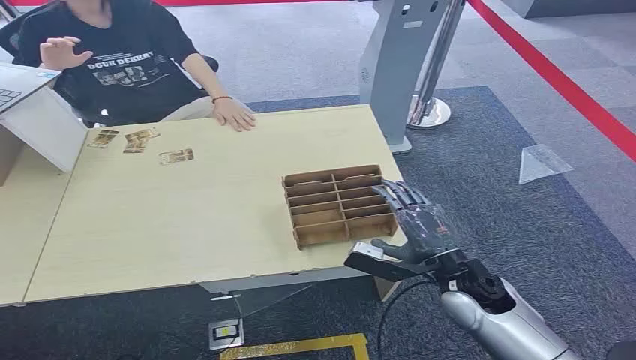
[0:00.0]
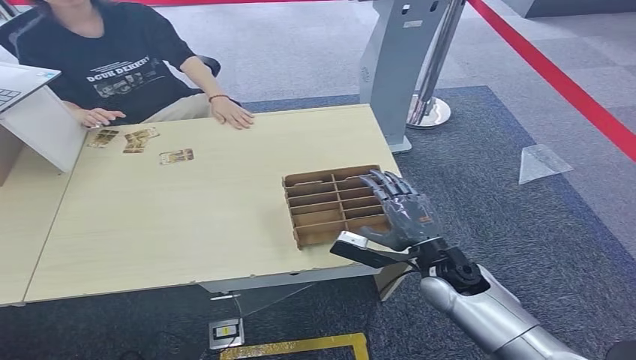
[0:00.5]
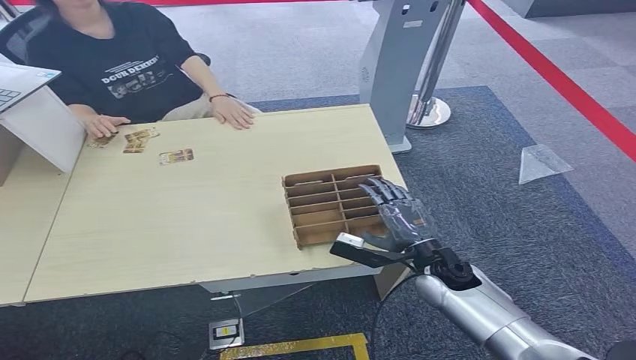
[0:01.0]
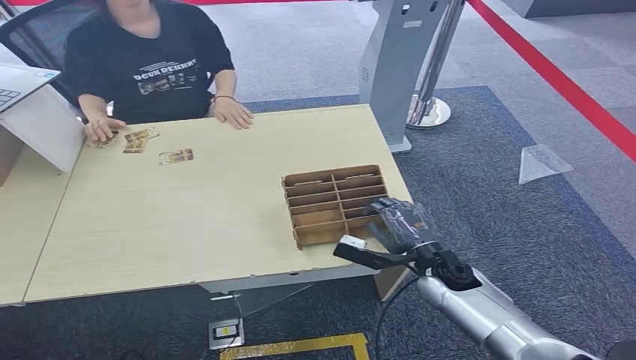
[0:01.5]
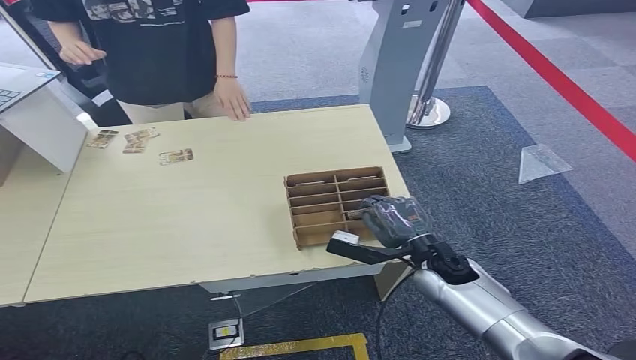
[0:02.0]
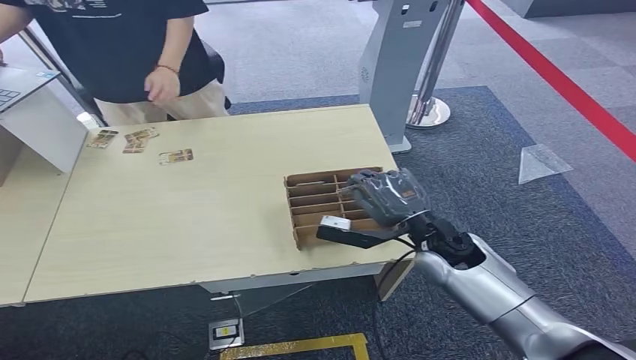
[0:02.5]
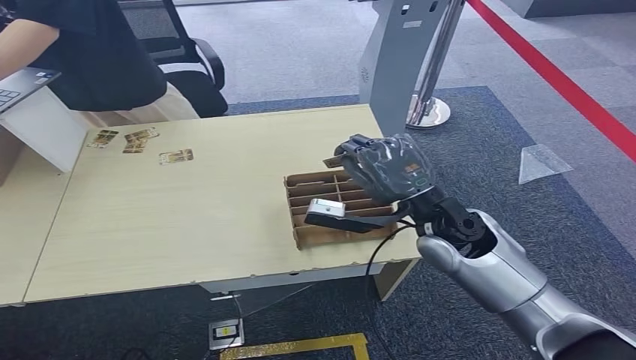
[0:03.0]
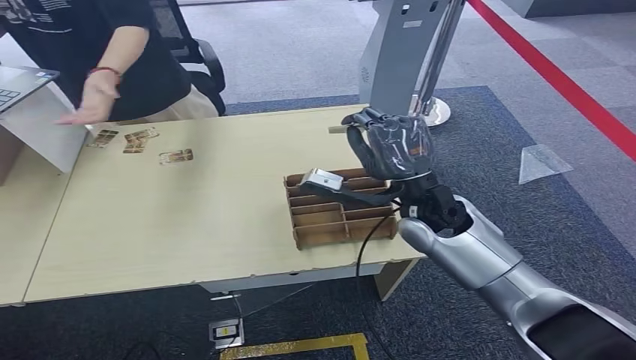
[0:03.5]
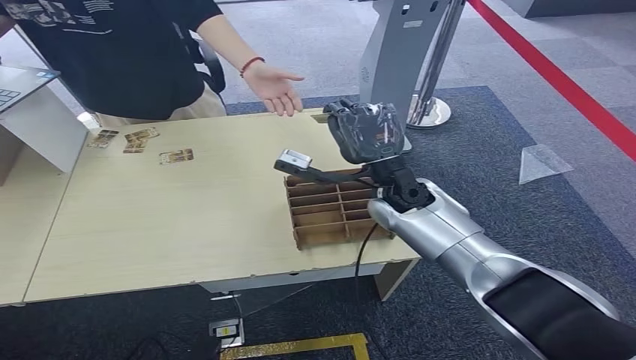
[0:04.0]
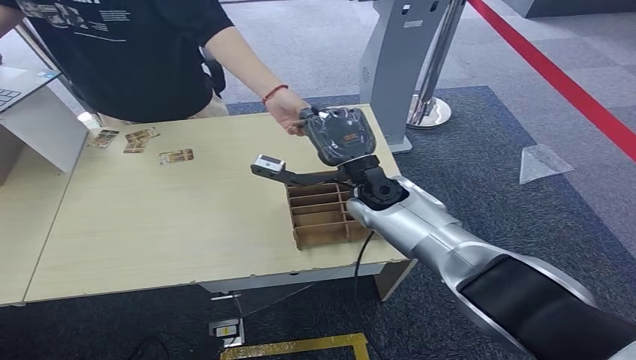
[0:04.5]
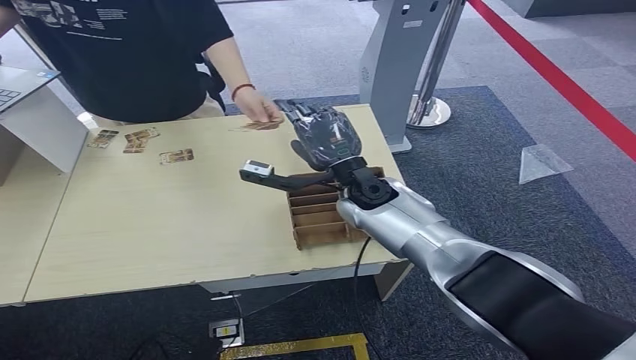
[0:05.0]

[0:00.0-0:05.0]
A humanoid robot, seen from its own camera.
Task of the whole recording: Pick up the card and hand it over to the target person.
Step, 0:00.0 to 0:03.5: Pick up the key card from the card box.
Step, 0:04.0 to 0:05.0: Hand the key card to the target.

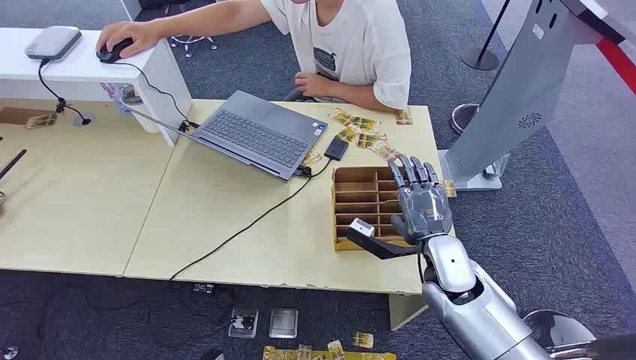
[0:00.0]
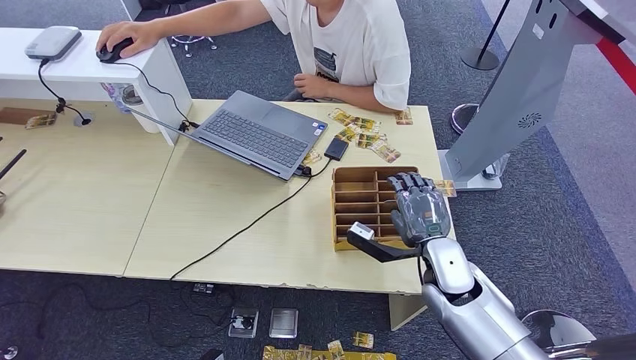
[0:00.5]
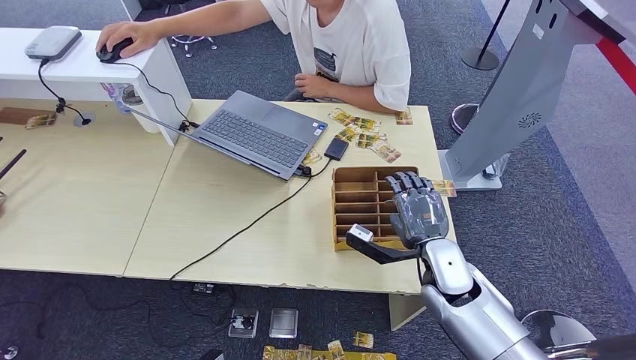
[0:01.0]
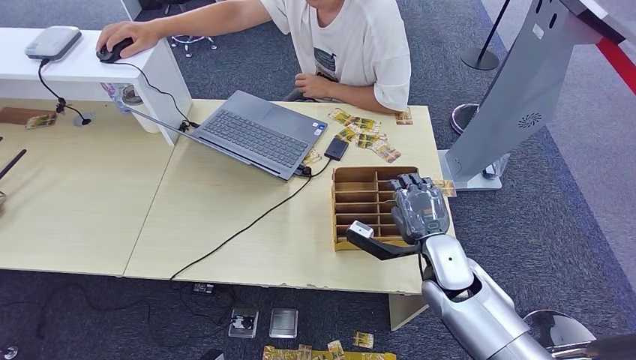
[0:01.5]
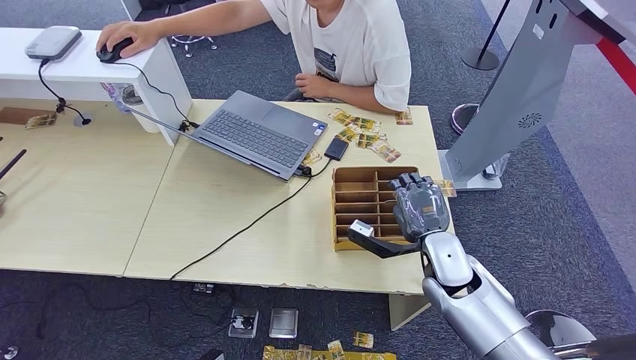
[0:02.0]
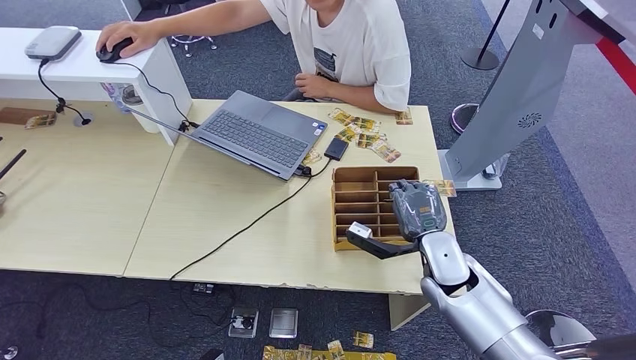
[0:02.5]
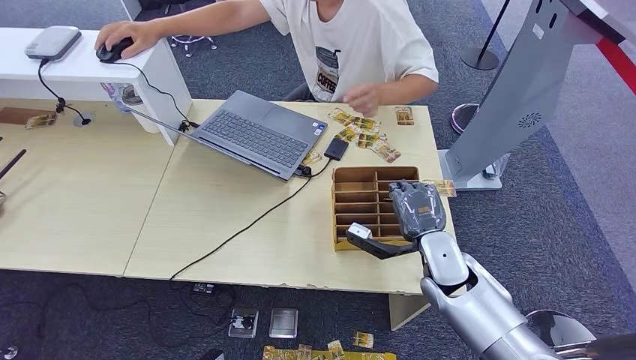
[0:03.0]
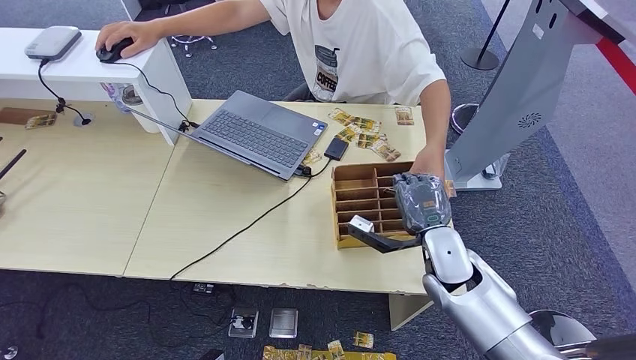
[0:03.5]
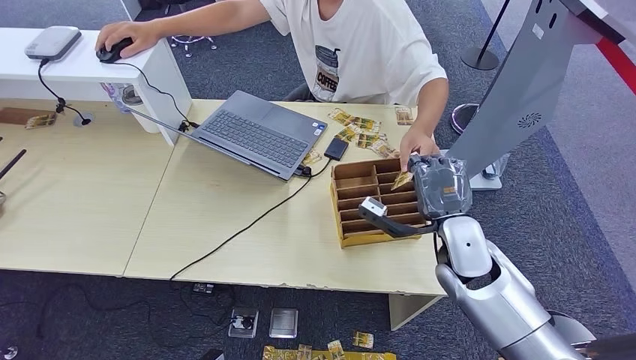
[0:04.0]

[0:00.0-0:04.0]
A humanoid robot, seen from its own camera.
Task of the whole recording: Pick up the card and hand it over to the target person.
Step, 0:00.0 to 0:03.0: Pick up the key card from the card box.
Step, 0:03.5 to 0:04.0: Hand the key card to the target.
0:02.0 to 0:04.0: The right hand moves upward, about 5 cm.
